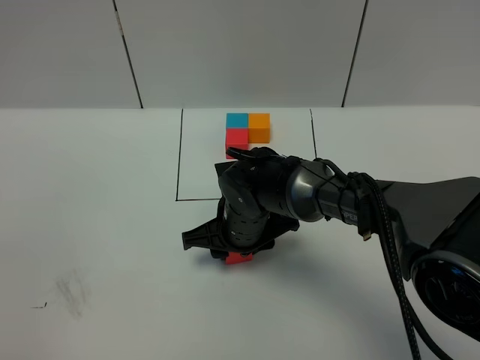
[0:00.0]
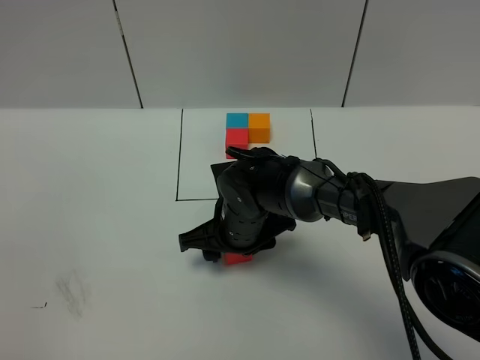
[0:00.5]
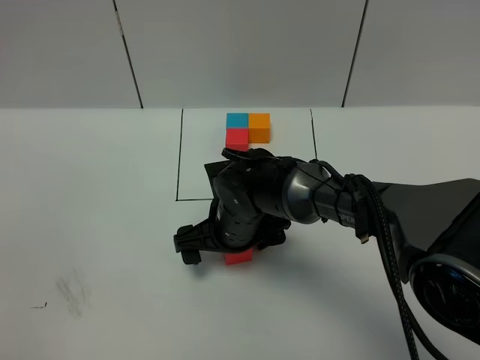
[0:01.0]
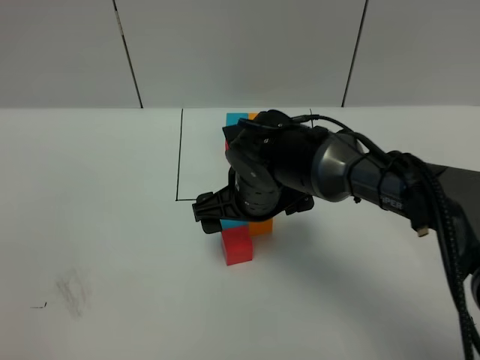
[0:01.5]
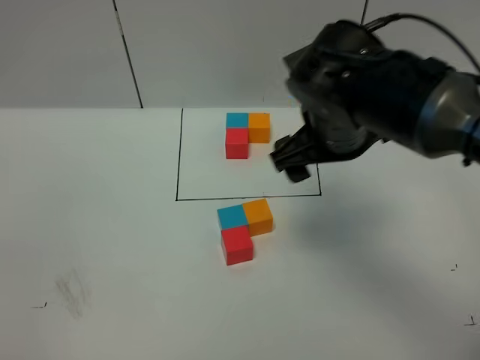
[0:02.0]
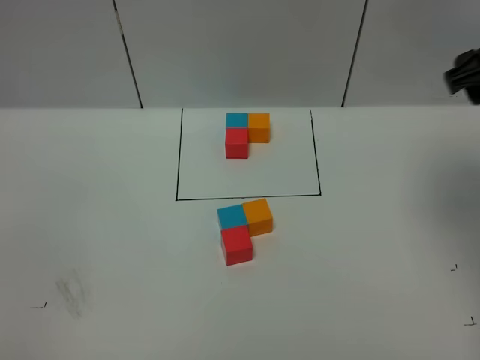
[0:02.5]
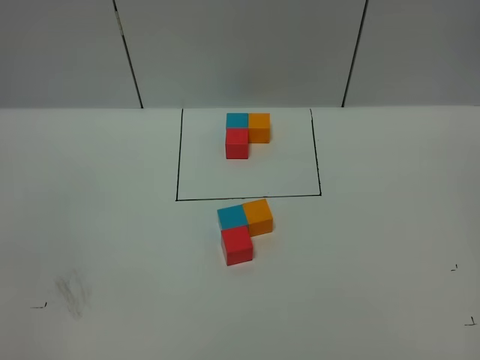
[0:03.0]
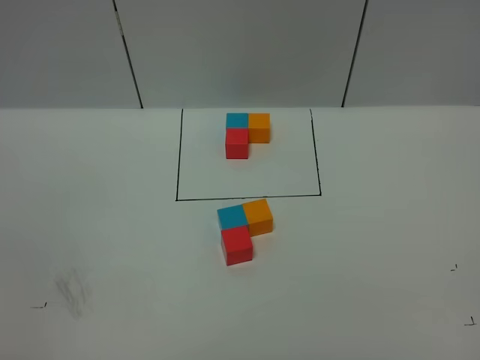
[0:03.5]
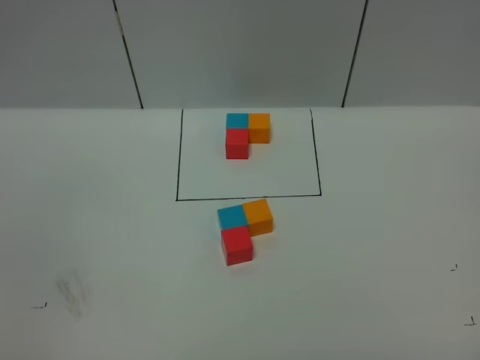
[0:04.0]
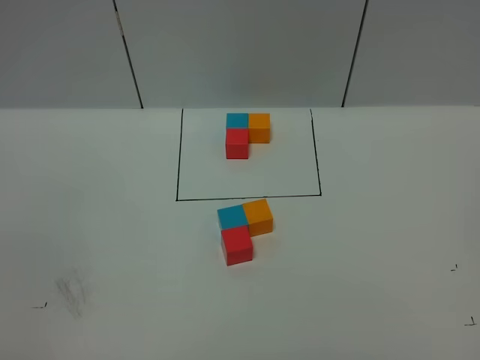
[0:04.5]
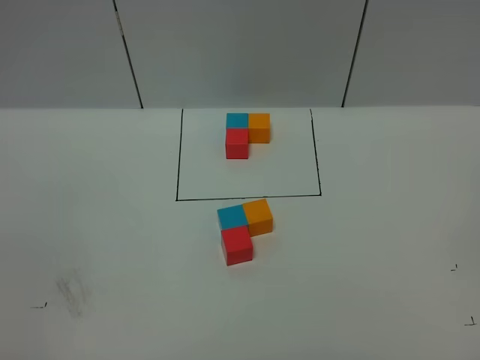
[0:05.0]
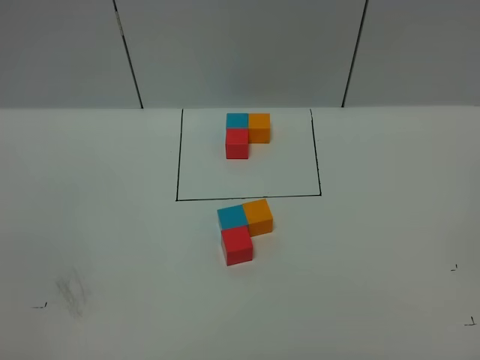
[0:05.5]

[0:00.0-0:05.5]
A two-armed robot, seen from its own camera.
Task of the whole recording: According to the building block template in front, assemble the scattered blocks together.
0:00.0 to 0:02.0: The right gripper goes some 20 cm upward and to the right, and opens its fingers.
0:02.0 to 0:03.5: The right gripper goes roughly 40 cm backward, to the right and upward, and closes its fingers.
